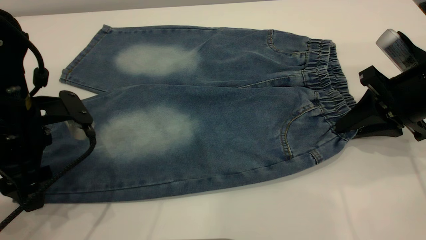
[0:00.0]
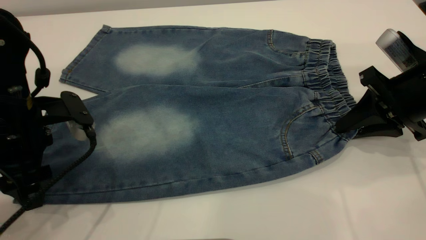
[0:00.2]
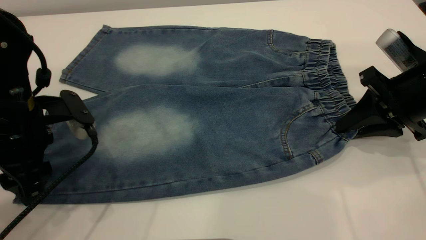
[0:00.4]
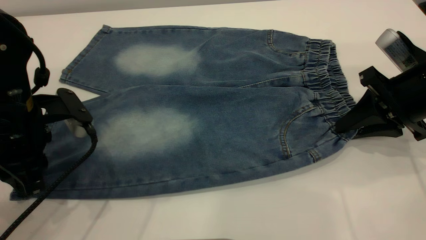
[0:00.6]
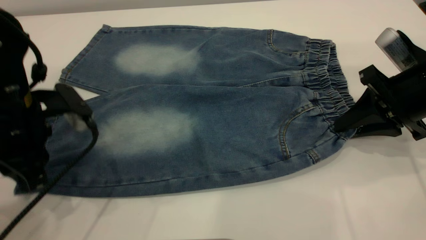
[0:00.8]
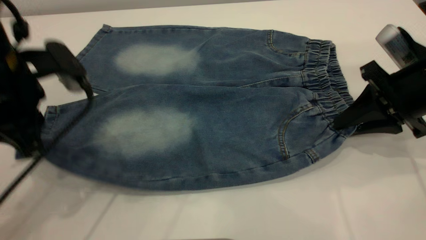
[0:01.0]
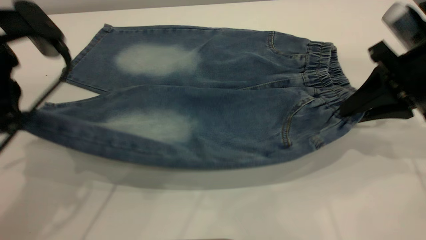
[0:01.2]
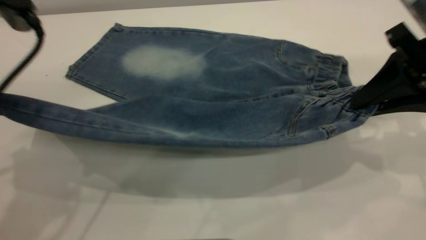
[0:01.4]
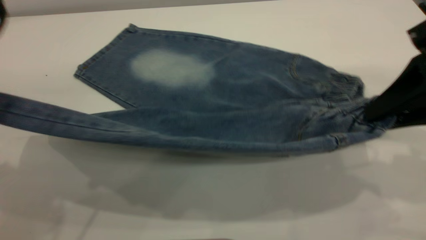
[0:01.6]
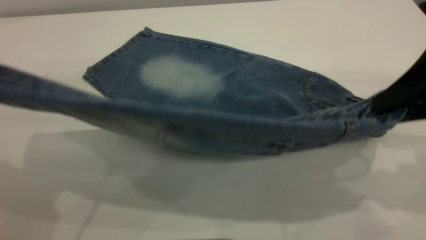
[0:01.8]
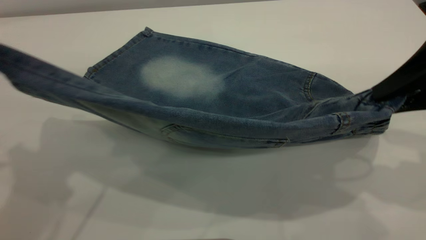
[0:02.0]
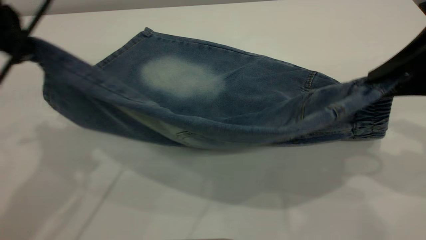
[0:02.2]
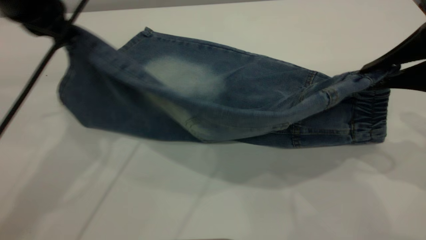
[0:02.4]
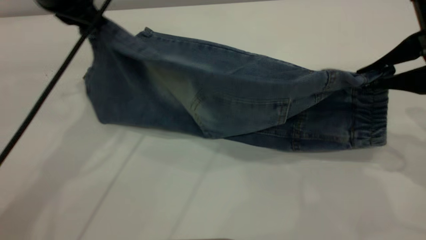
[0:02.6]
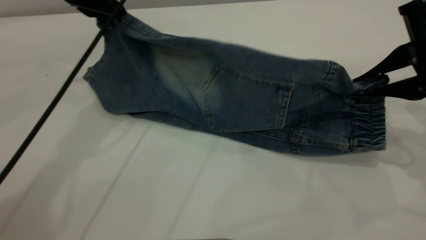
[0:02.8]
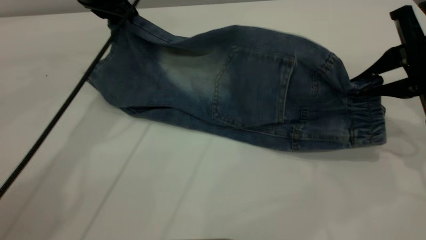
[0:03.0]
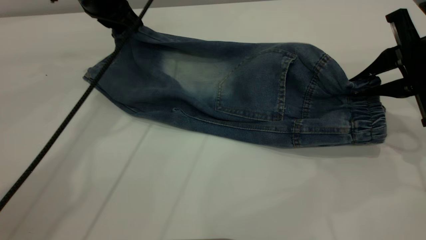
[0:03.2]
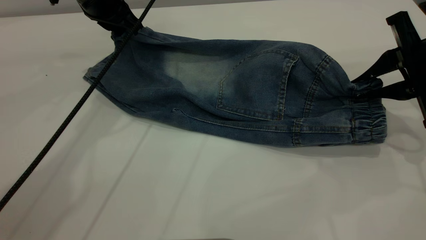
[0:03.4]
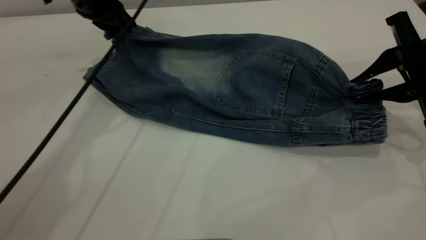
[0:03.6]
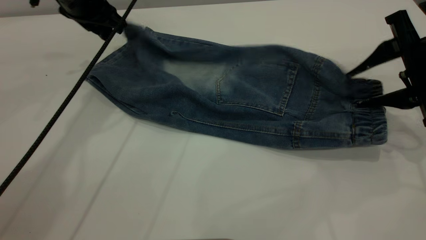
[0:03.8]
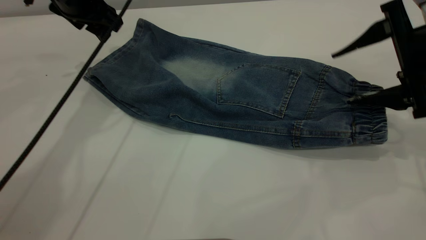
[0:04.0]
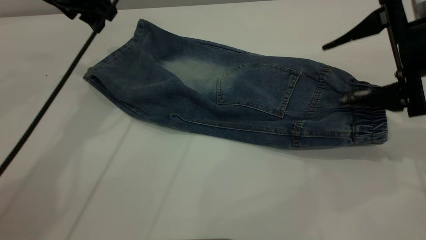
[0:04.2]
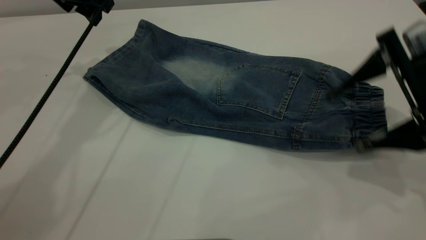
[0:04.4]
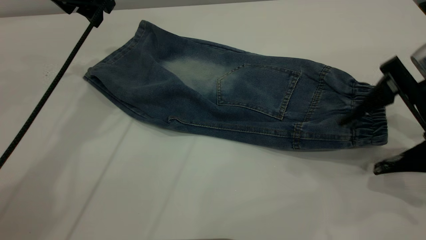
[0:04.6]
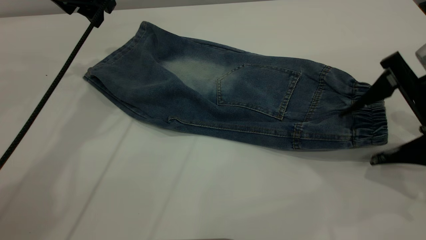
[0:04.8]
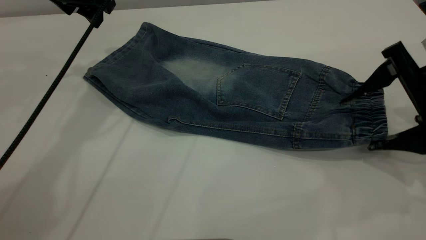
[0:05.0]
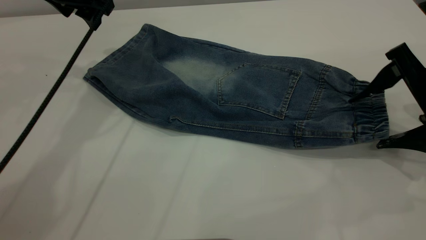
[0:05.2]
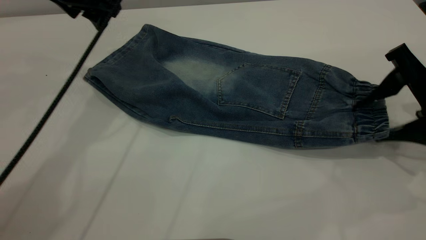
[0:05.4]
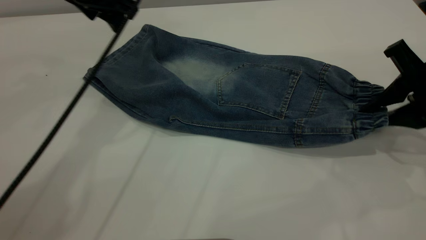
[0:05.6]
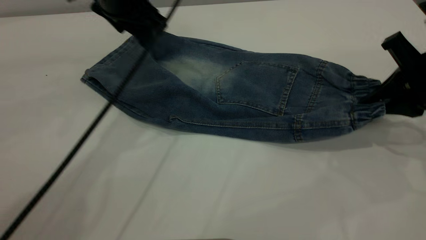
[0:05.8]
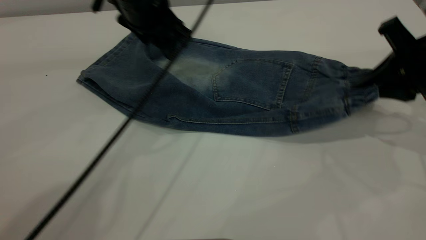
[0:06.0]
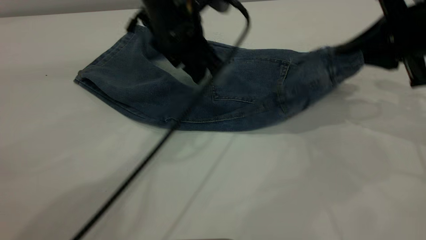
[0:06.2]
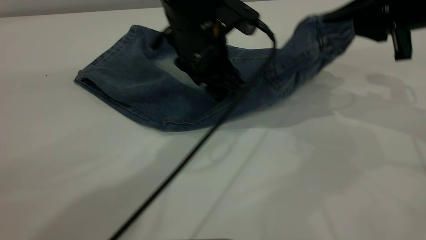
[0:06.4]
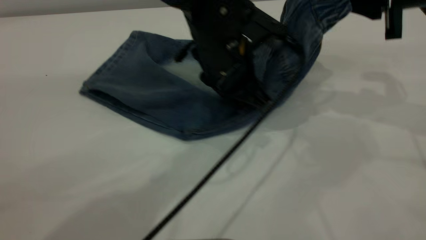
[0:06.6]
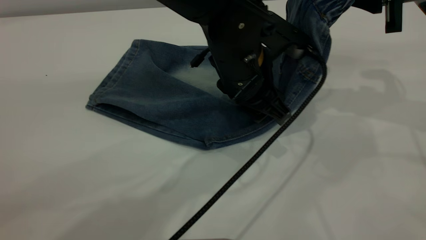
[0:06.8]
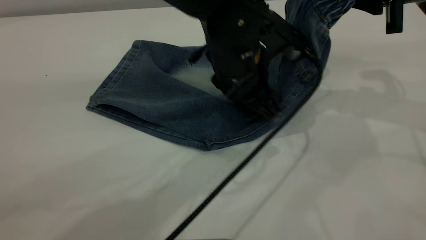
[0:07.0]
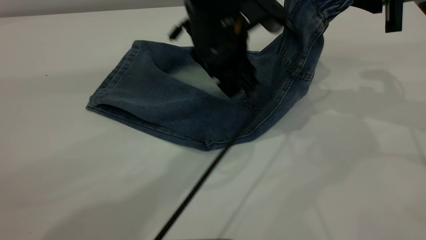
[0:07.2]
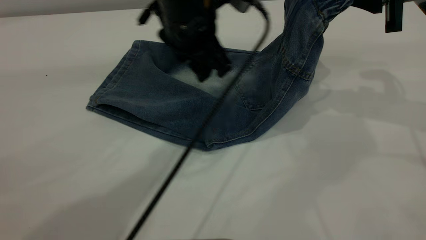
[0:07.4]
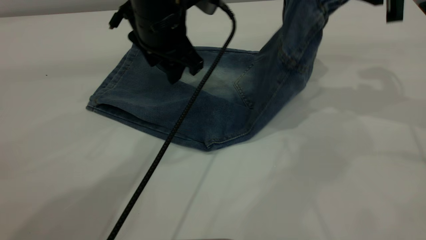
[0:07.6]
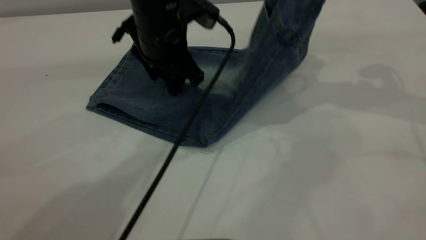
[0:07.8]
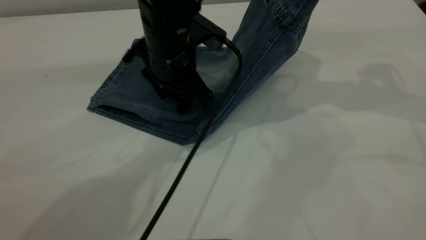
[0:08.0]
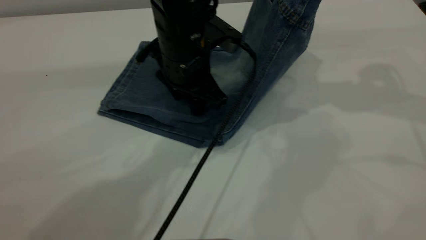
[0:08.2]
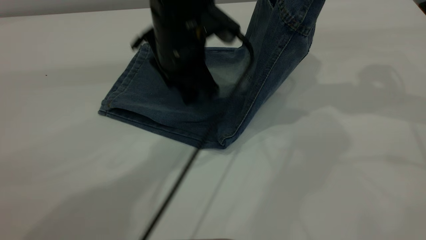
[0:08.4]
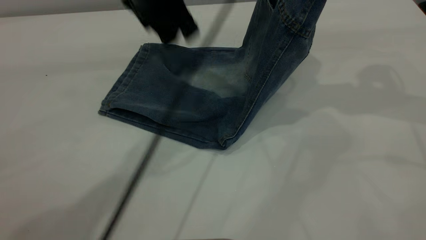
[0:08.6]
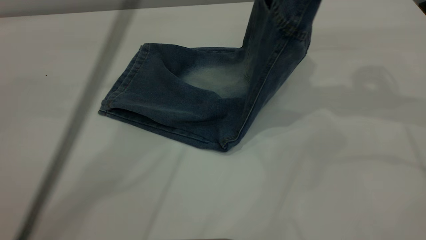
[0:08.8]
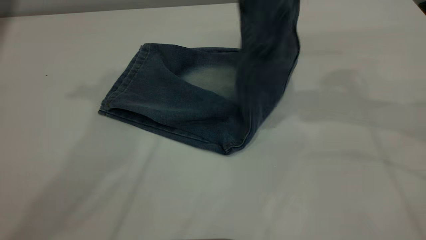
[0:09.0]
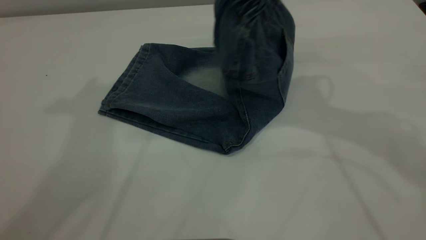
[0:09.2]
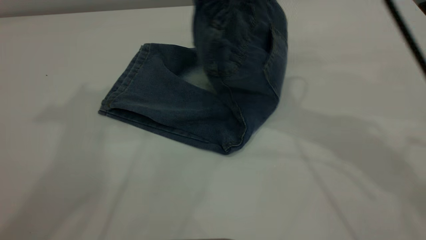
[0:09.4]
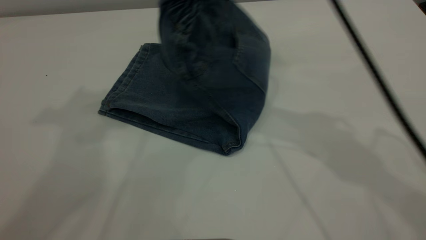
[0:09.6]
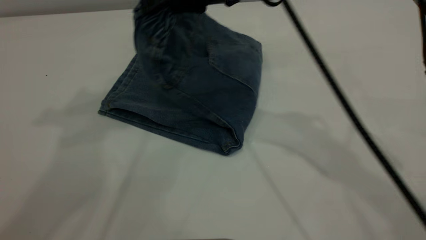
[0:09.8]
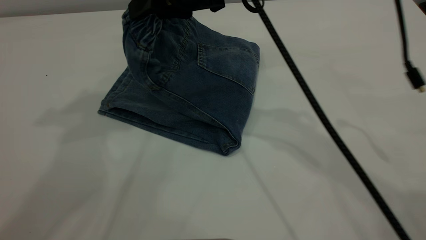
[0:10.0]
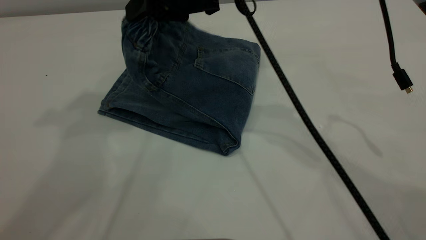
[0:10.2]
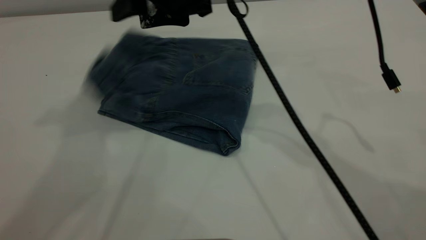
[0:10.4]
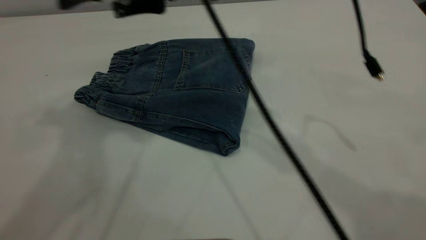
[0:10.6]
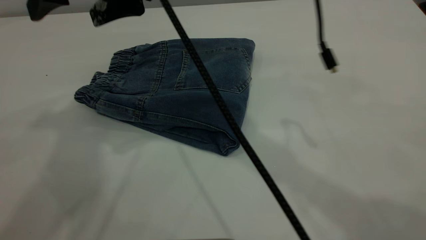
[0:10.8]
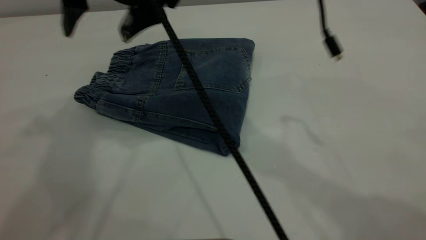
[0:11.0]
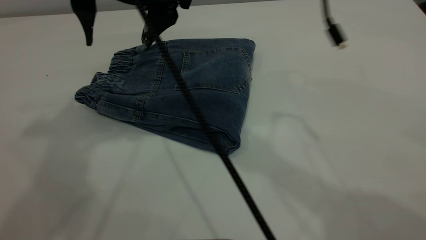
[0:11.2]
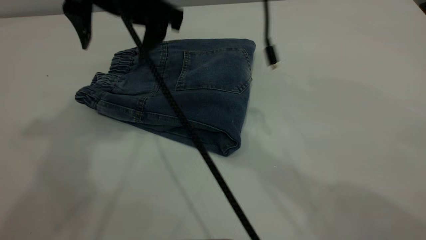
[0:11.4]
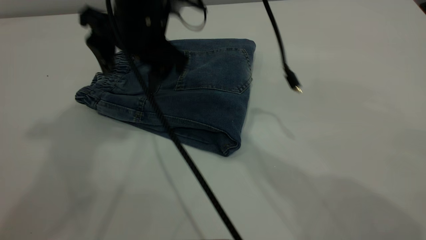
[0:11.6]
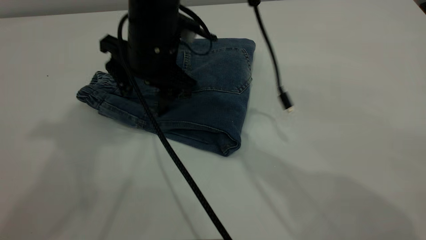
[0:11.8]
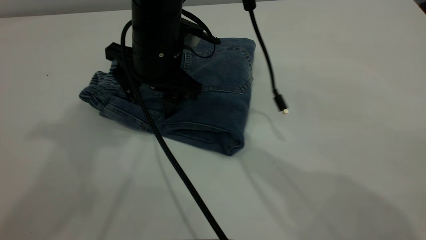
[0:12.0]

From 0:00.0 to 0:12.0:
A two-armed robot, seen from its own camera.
Step, from 0:00.0 to 0:04.8: Fold the bottom of the pants upward.
Step, from 0:05.0 to 0:10.8: Fold your pants from right to left.
From 0:00.0 to 0:01.6: The right gripper moves upward and backward, approximately 15 cm; the left gripper shifts approximately 20 cm upward, and closes up.
From 0:01.6 to 0:03.0: The right gripper goes roughly 10 cm forward and downward. The left gripper travels forward by about 25 cm.
From 0:03.0 to 0:04.4: The right gripper opens its fingers. The left gripper opens.
From 0:04.4 to 0:06.0: The left gripper shifts approximately 15 cm to the right, while the right gripper closes its fingers.
From 0:06.0 to 0:07.6: The right gripper heads upward and forward, covering approximately 10 cm, while the left gripper goes to the right and returns, about 10 cm each way.
From 0:07.6 to 0:09.0: The left gripper heads upward, covering roughly 25 cm. The right gripper shifts about 5 cm to the left.
From 0:09.0 to 0:10.4: The left gripper changes place by roughly 5 cm. The right gripper travels to the left by approximately 20 cm, and opens.
From 0:10.4 to 0:12.0: The right gripper travels downward and to the left by roughly 10 cm.

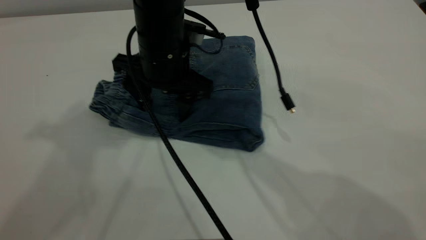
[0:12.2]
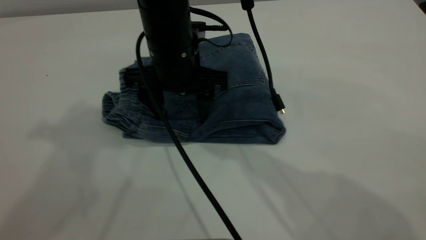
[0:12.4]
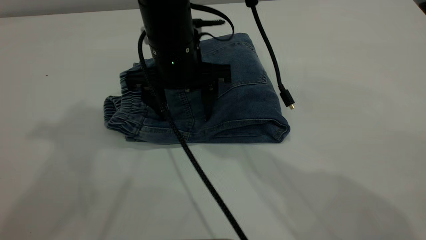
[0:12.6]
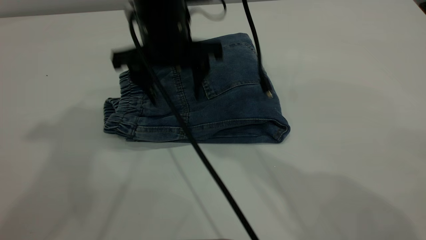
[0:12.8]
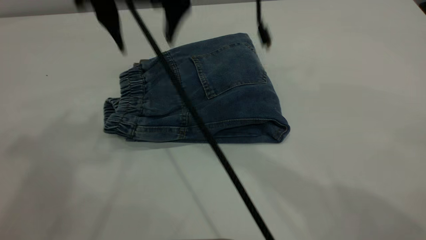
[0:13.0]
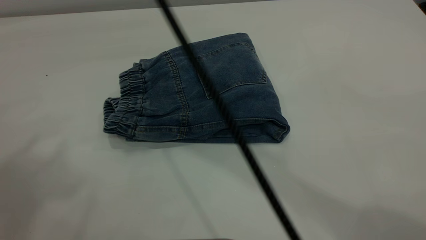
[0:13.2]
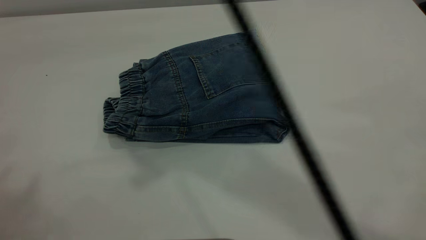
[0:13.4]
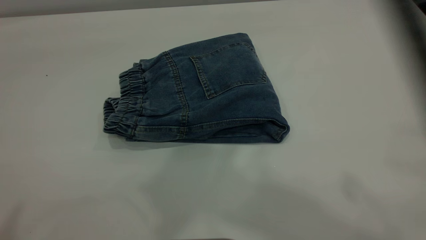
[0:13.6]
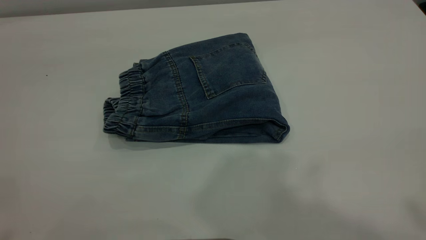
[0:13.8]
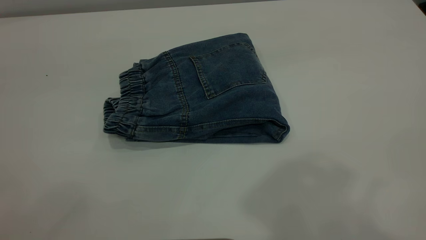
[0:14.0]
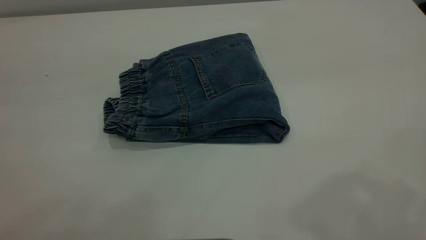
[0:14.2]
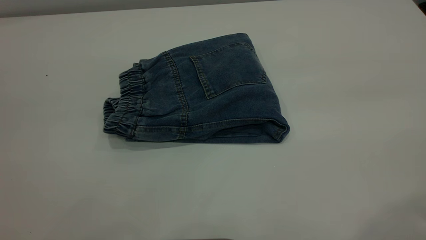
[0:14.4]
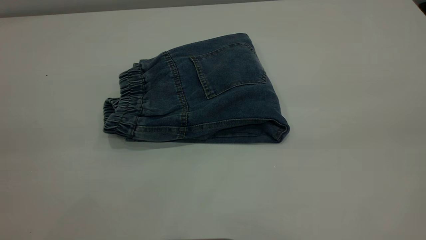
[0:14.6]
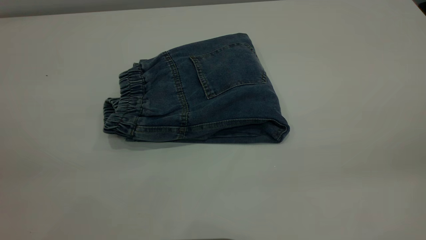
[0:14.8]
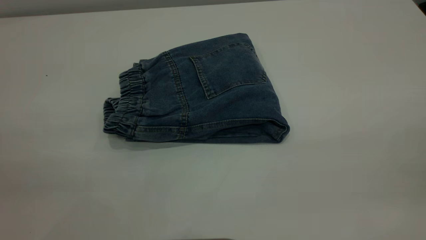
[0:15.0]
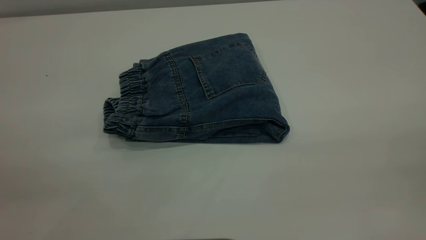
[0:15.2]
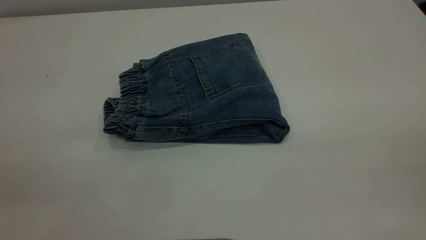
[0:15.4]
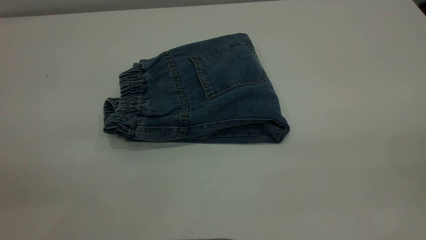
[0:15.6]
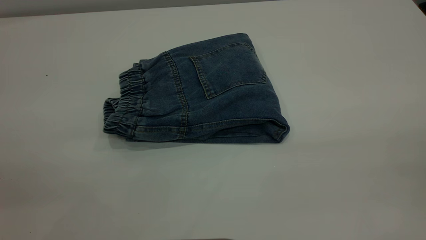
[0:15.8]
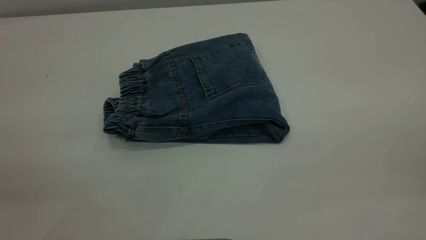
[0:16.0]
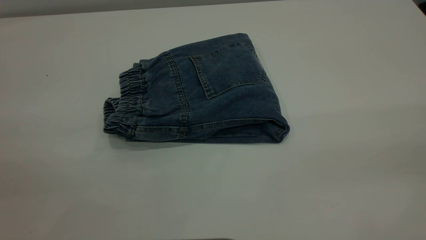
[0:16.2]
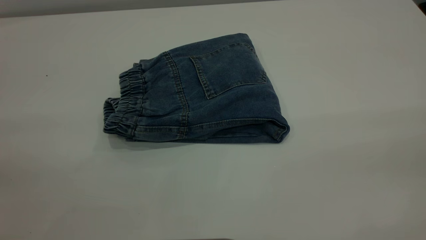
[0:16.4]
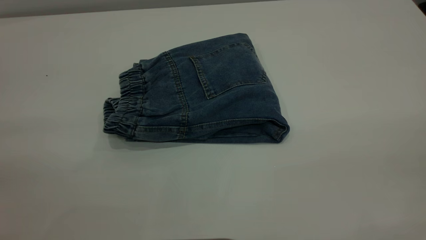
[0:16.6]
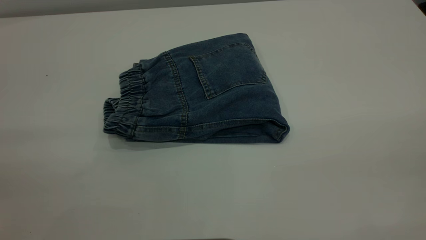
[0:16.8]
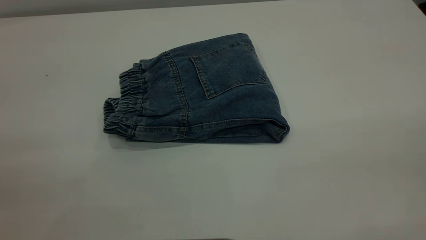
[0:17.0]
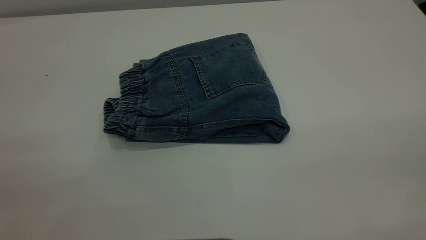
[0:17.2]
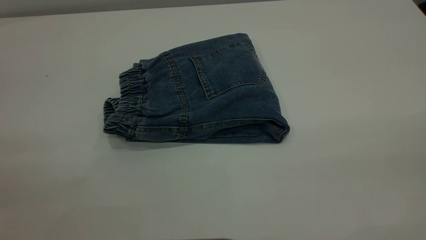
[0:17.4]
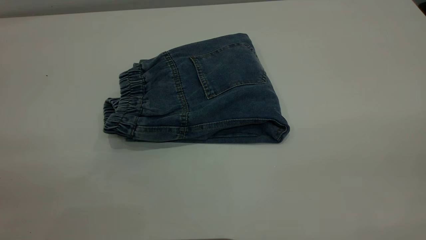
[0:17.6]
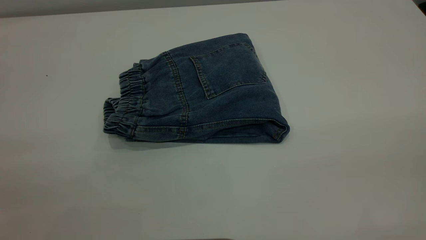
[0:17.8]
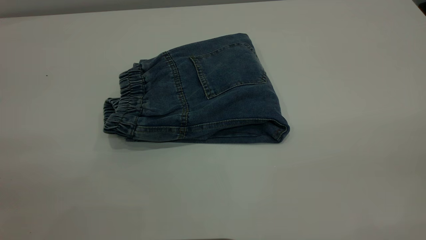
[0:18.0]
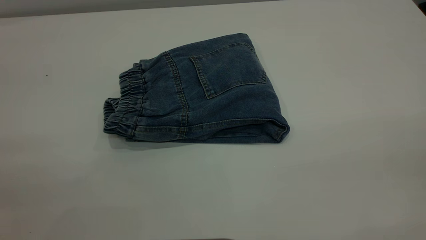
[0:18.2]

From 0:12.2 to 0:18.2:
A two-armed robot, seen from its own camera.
From 0:12.2 to 0:13.8: The left gripper shifts approximately 20 cm backward and to the left. The right gripper shifts some 40 cm upward and backward.
